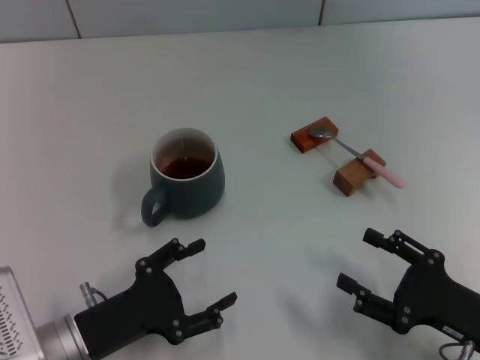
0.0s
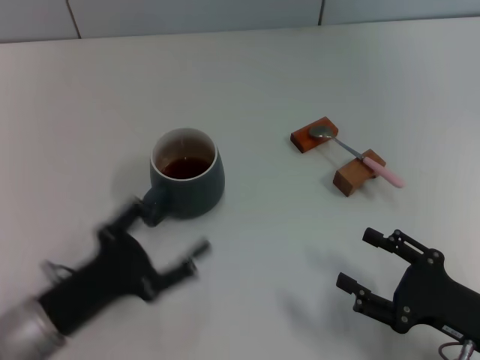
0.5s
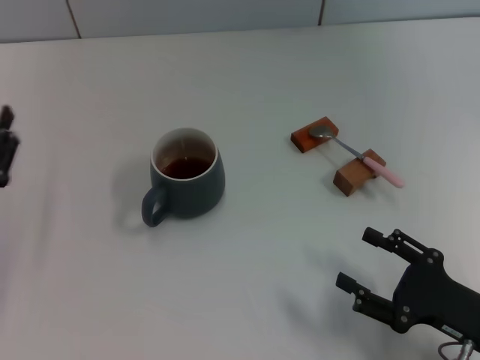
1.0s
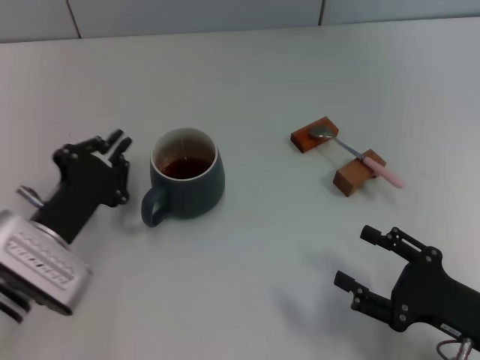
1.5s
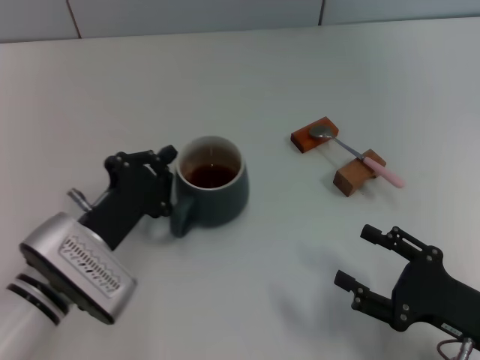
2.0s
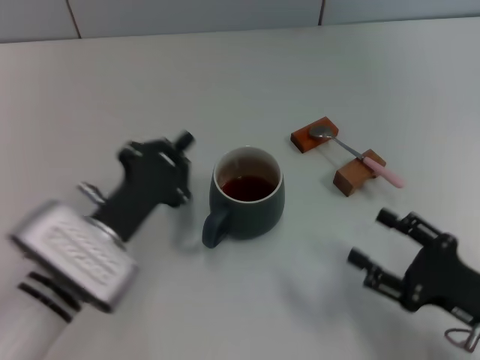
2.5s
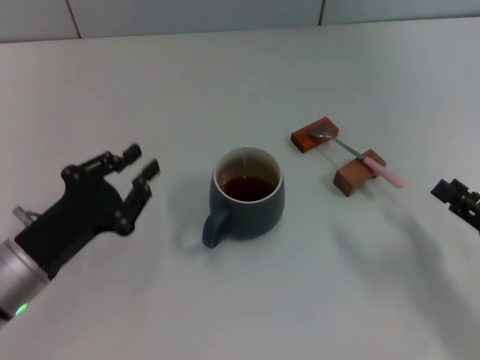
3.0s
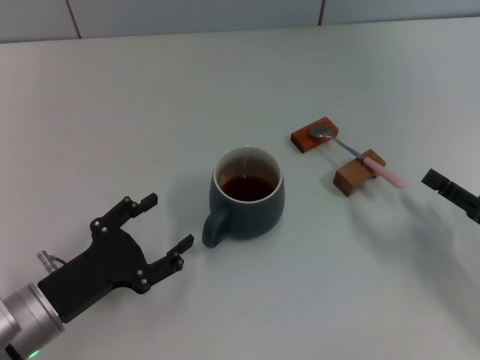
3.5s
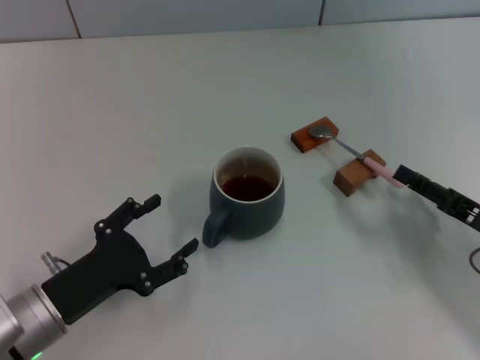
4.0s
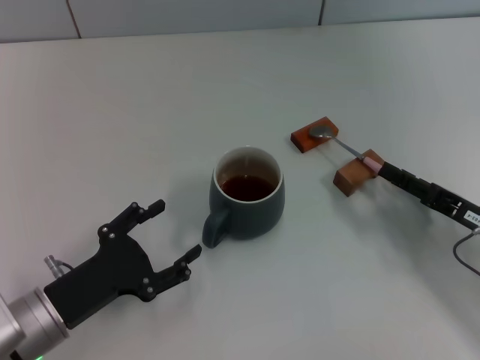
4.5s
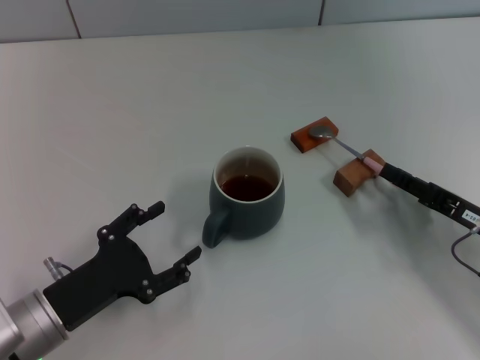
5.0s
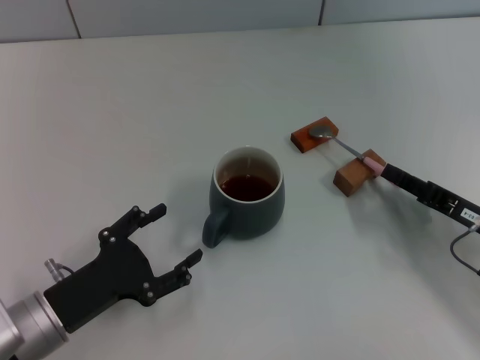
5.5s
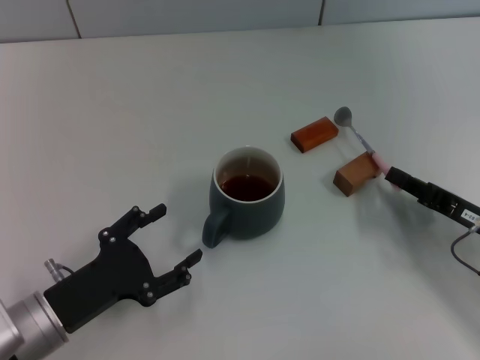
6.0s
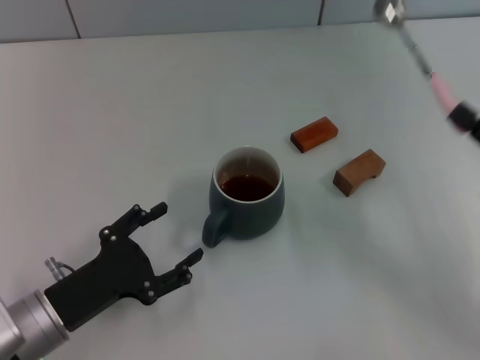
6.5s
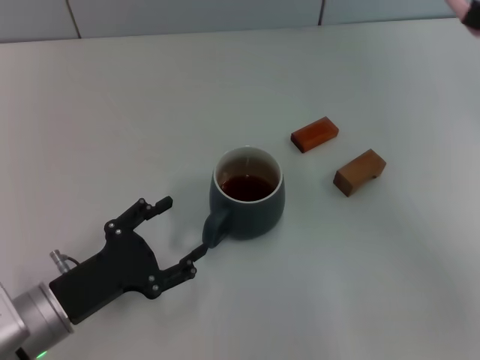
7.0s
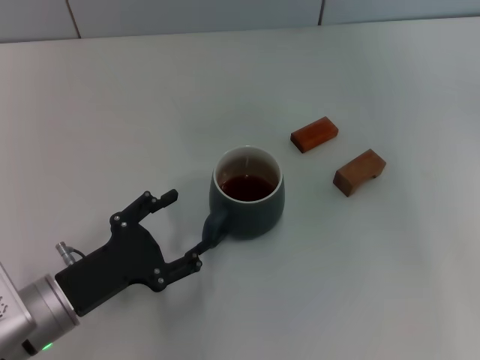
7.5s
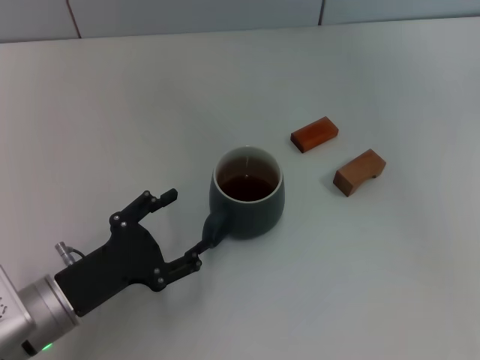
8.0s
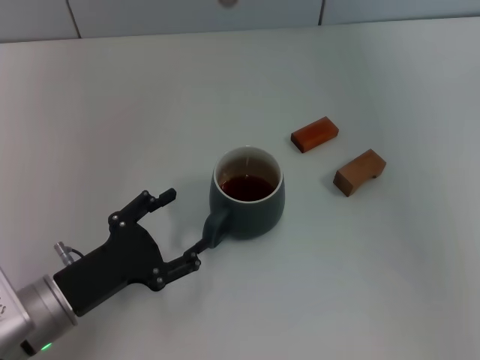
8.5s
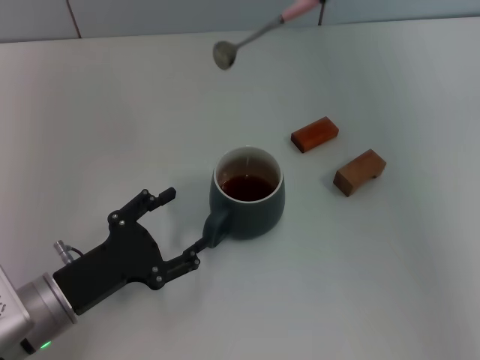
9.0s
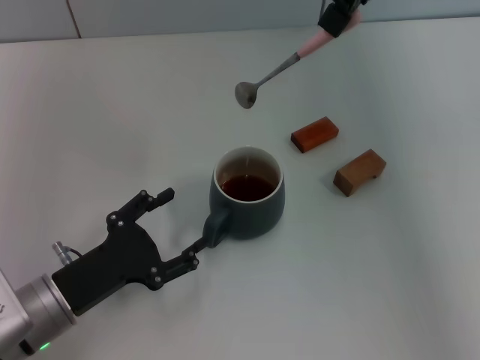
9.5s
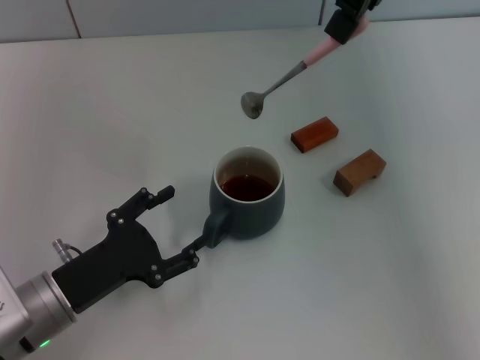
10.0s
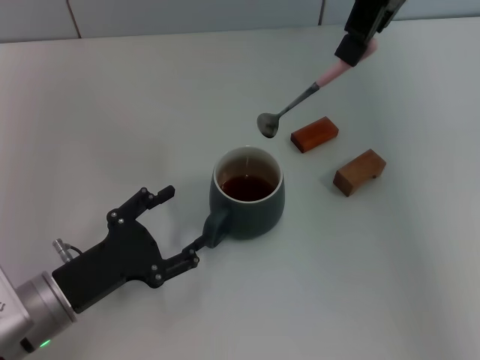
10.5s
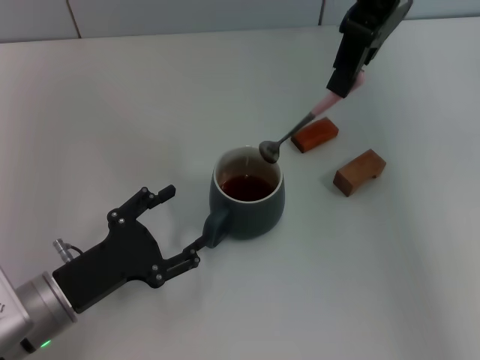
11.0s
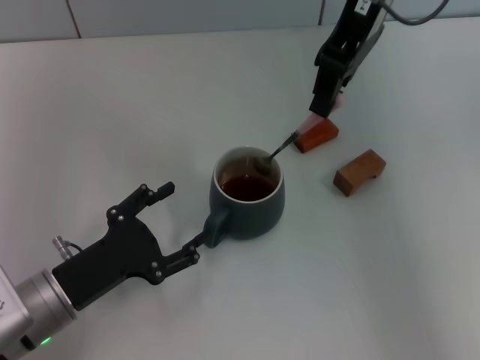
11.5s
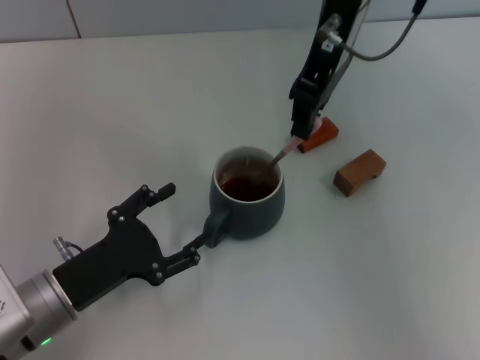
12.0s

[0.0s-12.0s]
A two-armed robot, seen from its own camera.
Task of the whole recording: Move the grey cup to the center, lift the pink spoon, stir it three times in the cup, and put the spoon into the cup.
Step, 0.0s to 2.5s: Move the cup with coffee to the center of view with the left gripper.
Step, 3.0s to 6.0s: Pick up the spoon with the right gripper.
0.0s to 2.0s: The left gripper travels forward by roughly 5 cm, reaches approximately 10 cm to the left, then returns, and closes.
2.0s to 4.0s: The left gripper shifts by roughly 5 cm, and opens; the right gripper heads forward and to the right, covering roughly 10 cm.
4.0s to 6.0s: The right gripper closes.
6.0s to 8.0s: The right gripper moves upward and forward, roughly 40 cm.
8.0s to 10.0s: The right gripper travels to the left by about 15 cm.
10.0s to 12.0s: The right gripper travels downward and to the left by approximately 10 cm.

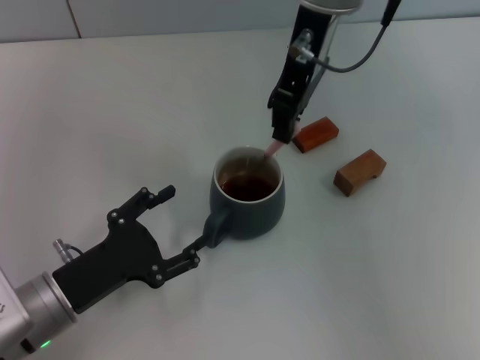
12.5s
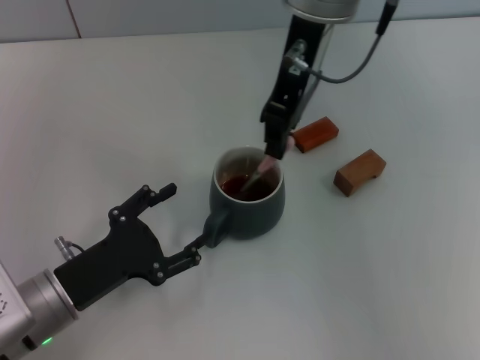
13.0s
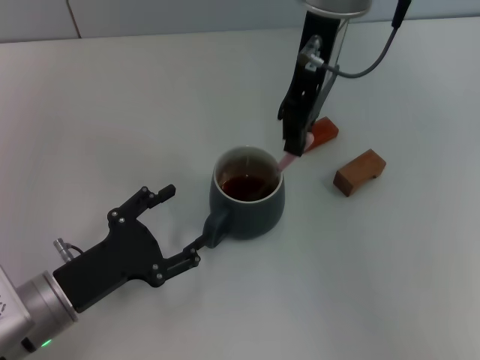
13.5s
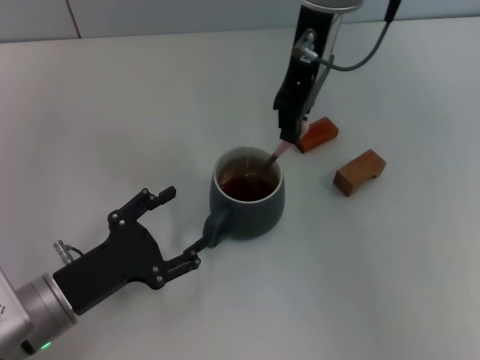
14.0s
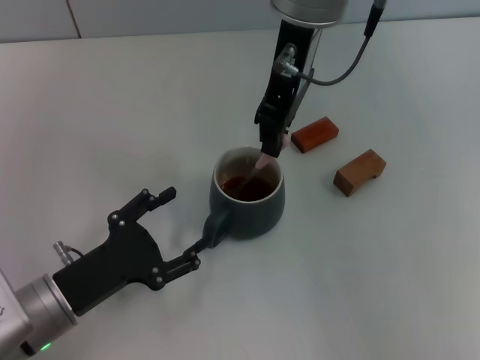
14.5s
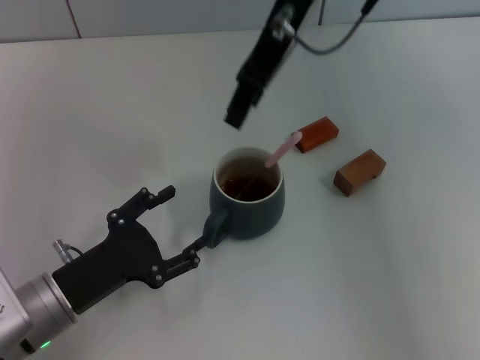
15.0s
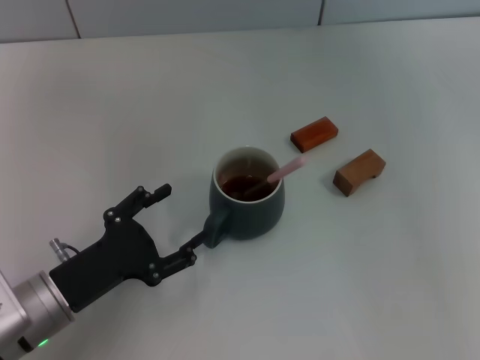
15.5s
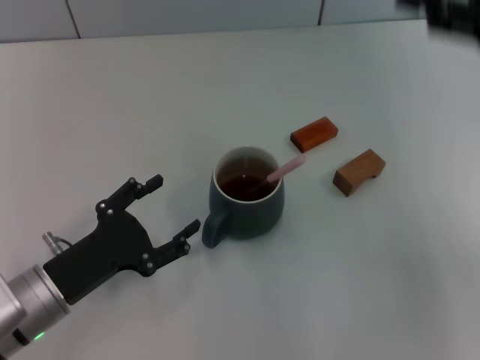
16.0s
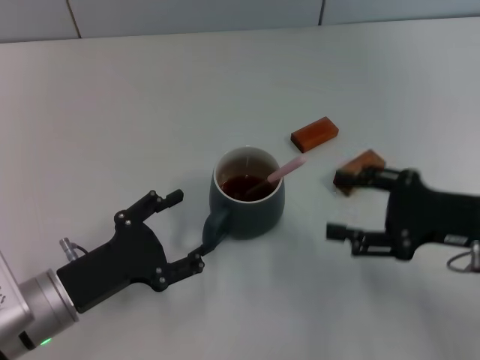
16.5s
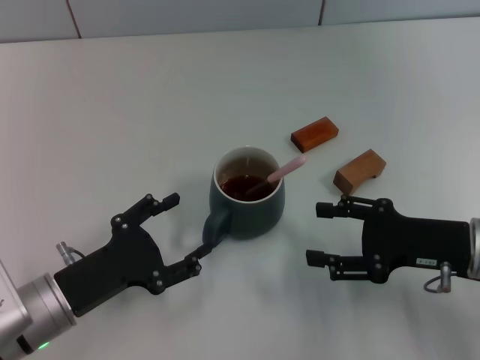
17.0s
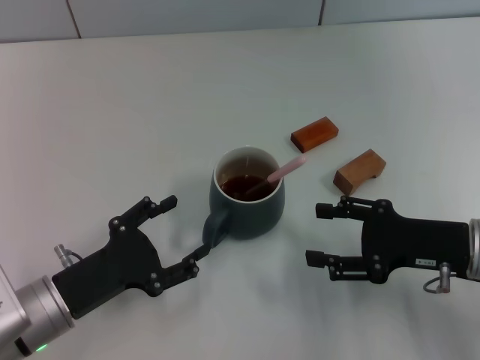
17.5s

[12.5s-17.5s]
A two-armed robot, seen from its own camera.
Task of the whole recording: Move the grey cup to the center, lift the pink spoon, stir it three times in the cup, and put the spoon into the cup.
Step, 12.5s to 15.0s: Stir the coffee in the cup with the right gripper.
12.5s to 15.0s: The right gripper opens up.
15.0s to 17.5s: The right gripper heads downward, to the right and backward, covering approximately 35 cm, and opens up.

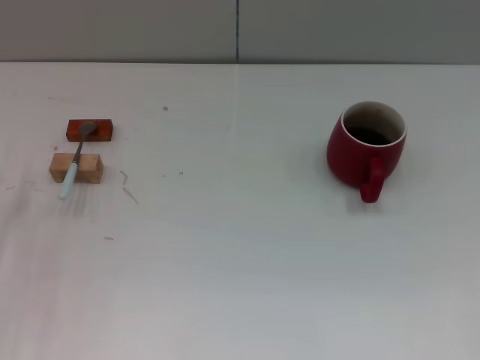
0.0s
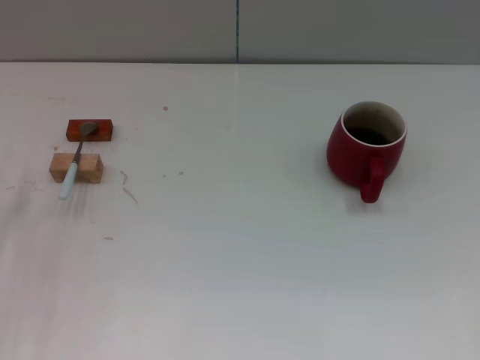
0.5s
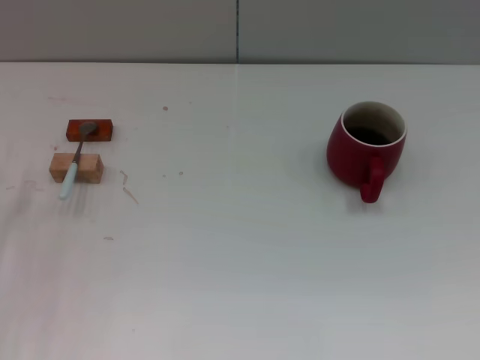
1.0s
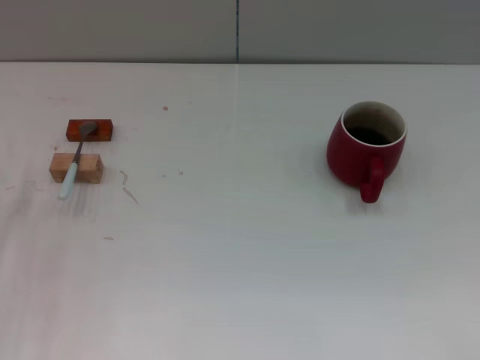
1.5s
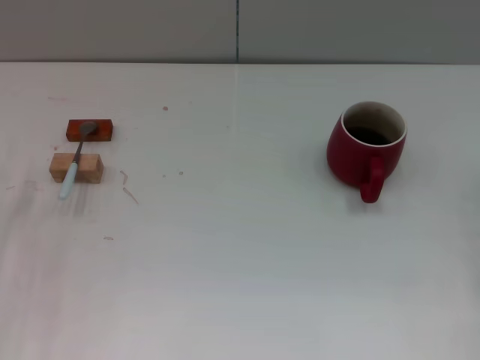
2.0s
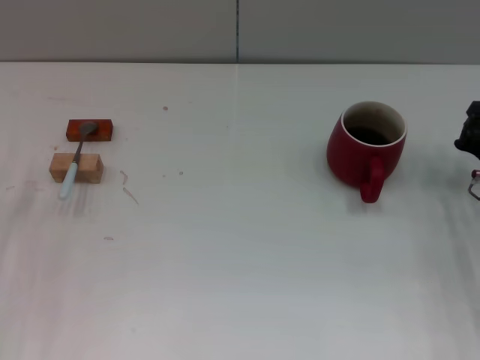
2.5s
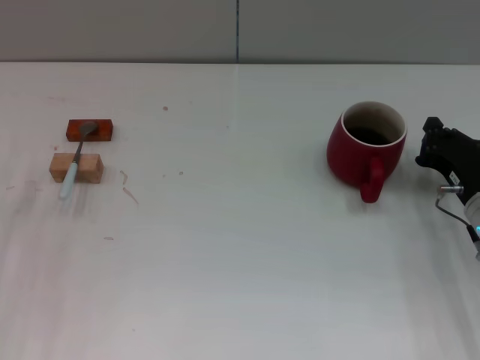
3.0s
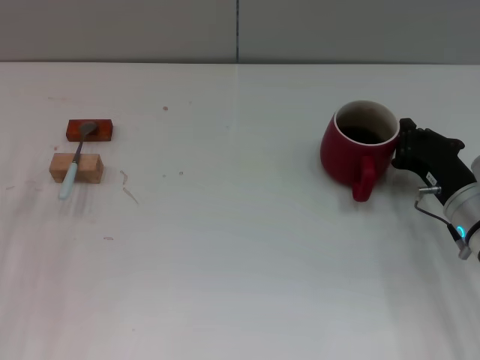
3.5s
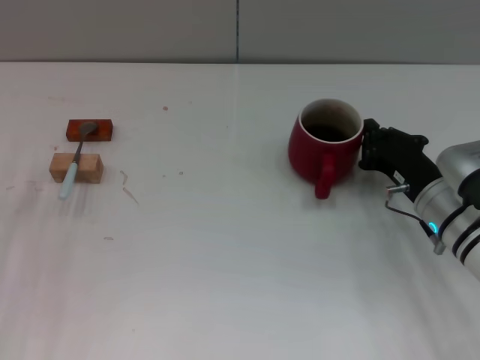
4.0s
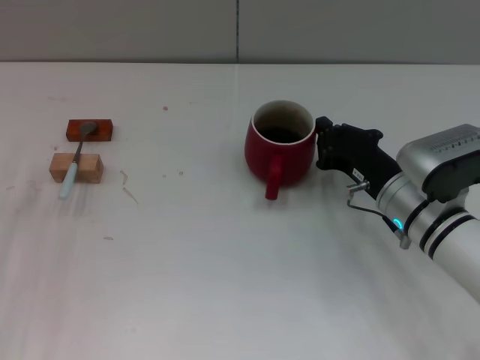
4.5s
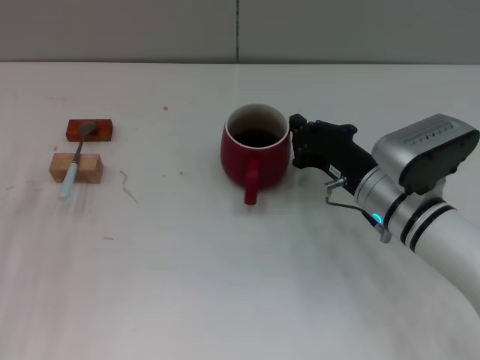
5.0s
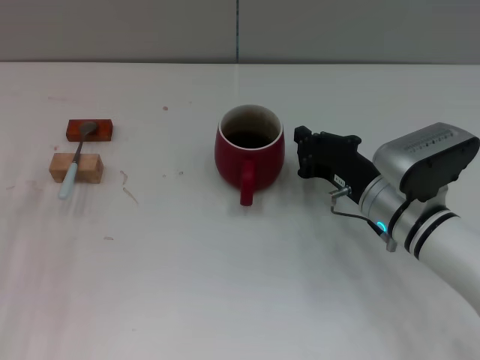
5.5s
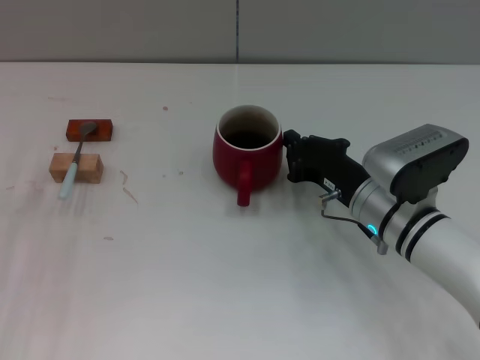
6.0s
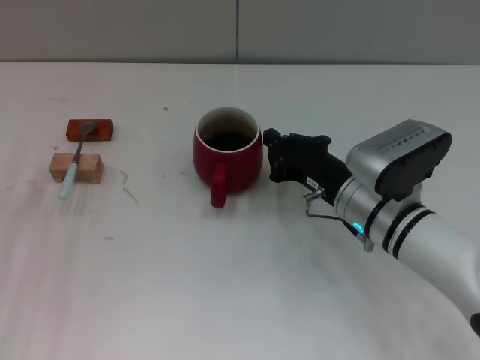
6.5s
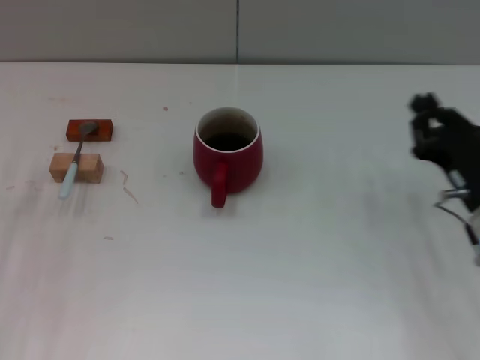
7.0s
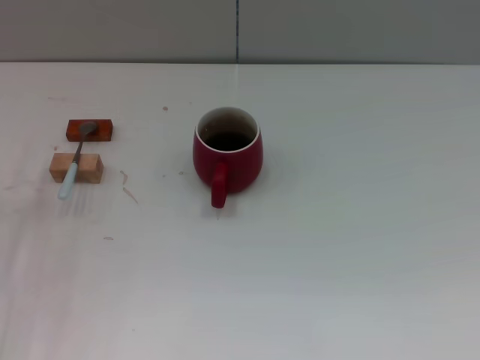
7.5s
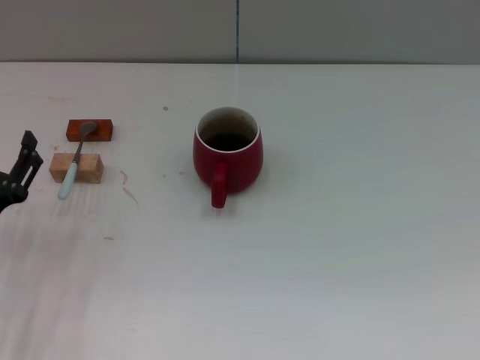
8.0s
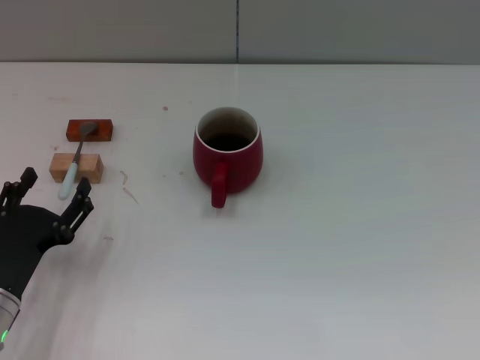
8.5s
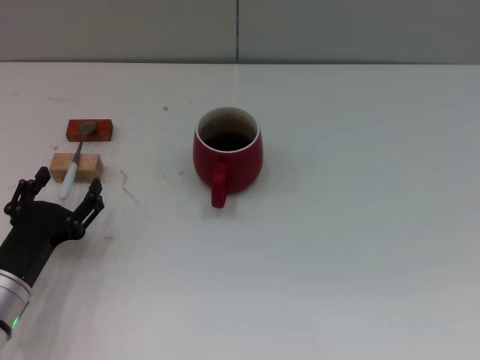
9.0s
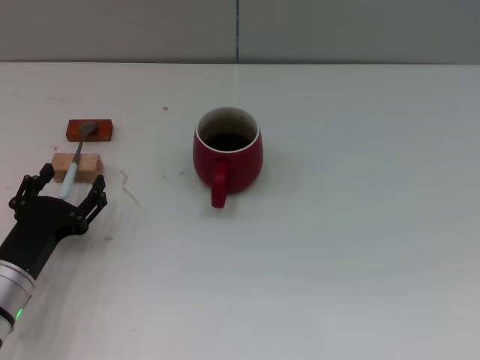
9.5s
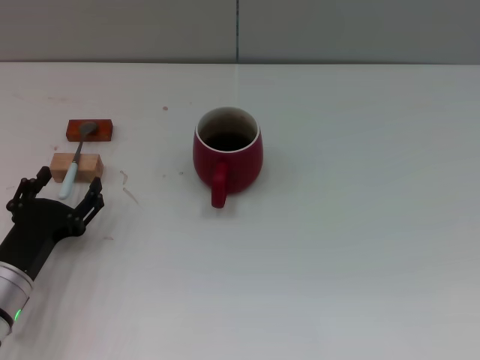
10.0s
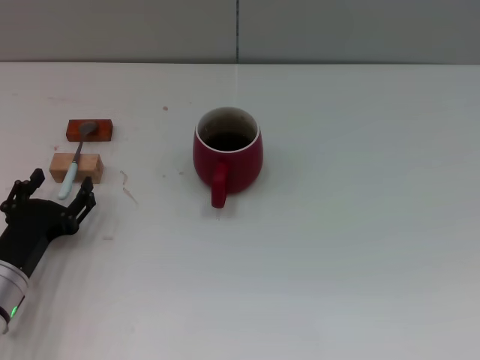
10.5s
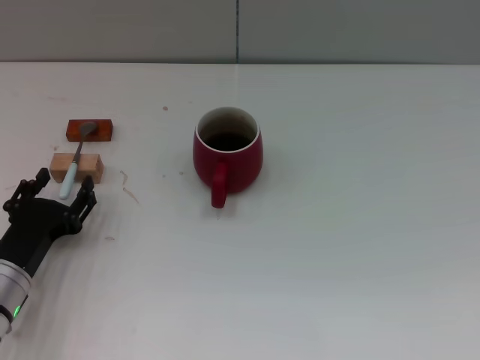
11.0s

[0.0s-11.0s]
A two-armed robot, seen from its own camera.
Task of the whole recording: Move the red cup to the center, lift the blue spoon, stir it three times in the cup, and put the spoon into the cup.
Step, 0.0s to 6.5s: Move the cup with coffee to the center of view with the right gripper.
2.0s to 3.5s: The right gripper moves to the left, some 10 cm.
3.5s to 5.5s: The right gripper goes roughly 10 cm to the left.
5.5s to 7.5s: The right gripper travels to the right and backward by some 30 cm, and opens up.
7.5s to 9.0s: The left gripper changes place by some 10 cm.
9.0s to 11.0s: The grippers move only a little.
